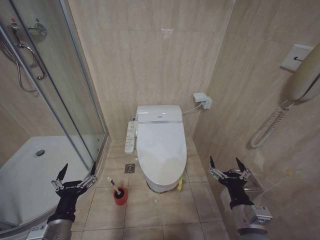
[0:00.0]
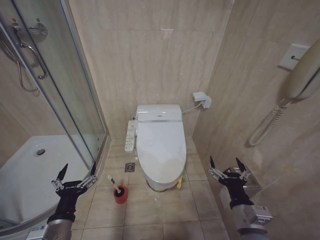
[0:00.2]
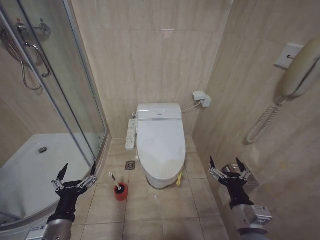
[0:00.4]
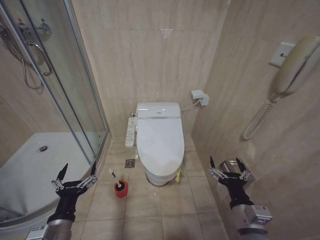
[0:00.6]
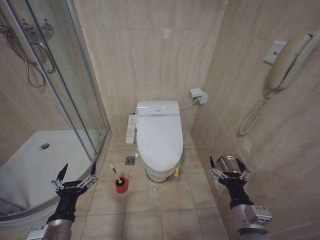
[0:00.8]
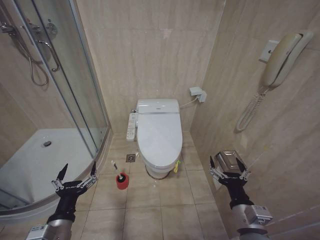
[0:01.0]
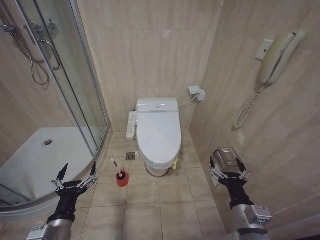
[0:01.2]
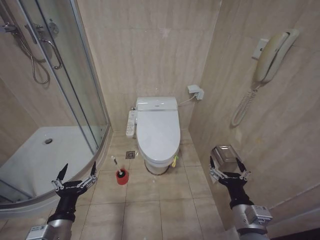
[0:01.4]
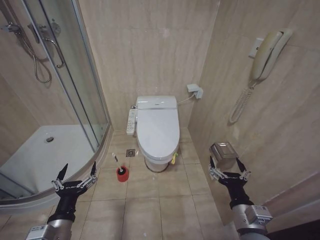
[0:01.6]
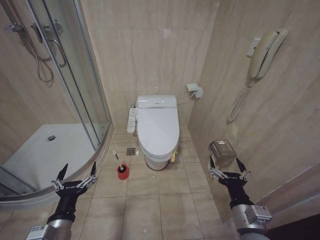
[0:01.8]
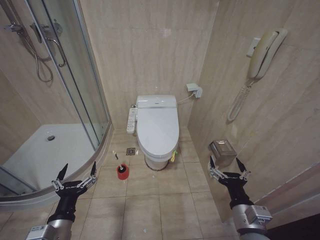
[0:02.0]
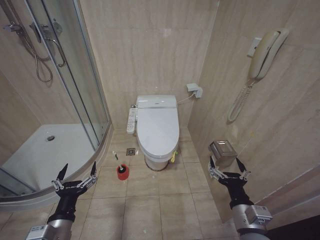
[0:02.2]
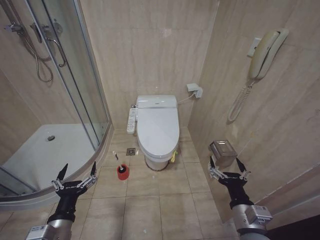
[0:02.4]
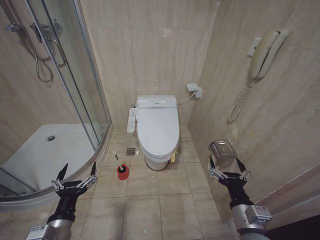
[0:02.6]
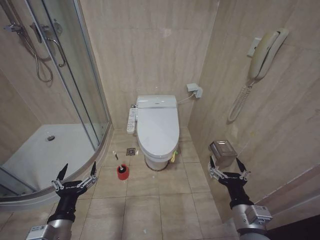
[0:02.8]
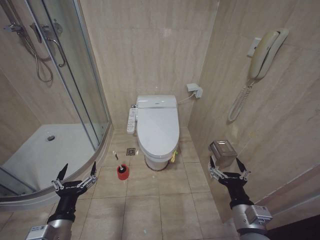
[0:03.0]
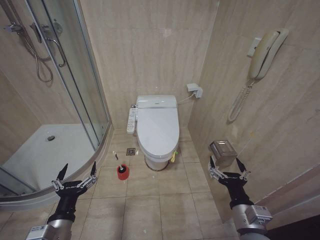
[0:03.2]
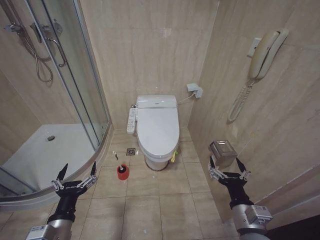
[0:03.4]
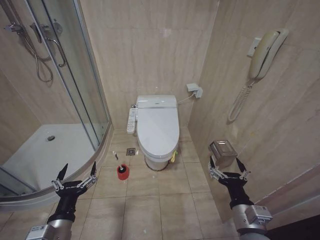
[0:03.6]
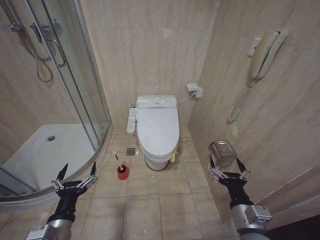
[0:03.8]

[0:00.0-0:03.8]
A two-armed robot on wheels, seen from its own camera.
Task of the whole recording: Open the toilet lid, clean the toilet bowl with a toilet brush, close the toilet lid, and flush.
0:00.0 to 0:03.8: Both grippers stay about where they are.
